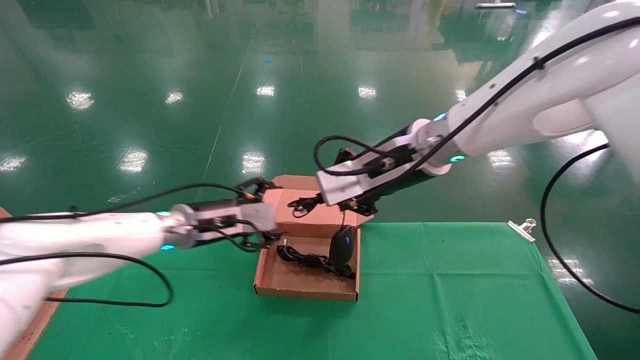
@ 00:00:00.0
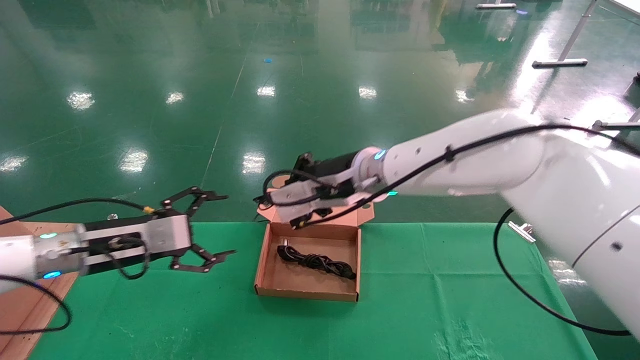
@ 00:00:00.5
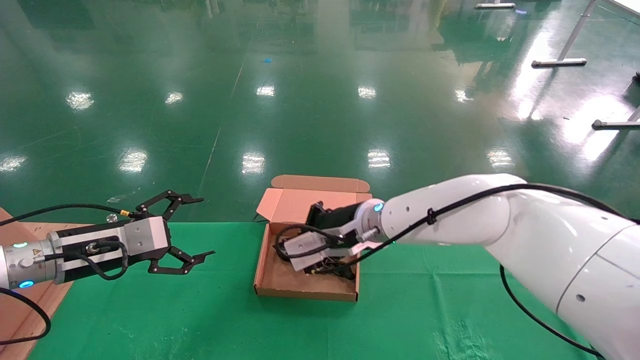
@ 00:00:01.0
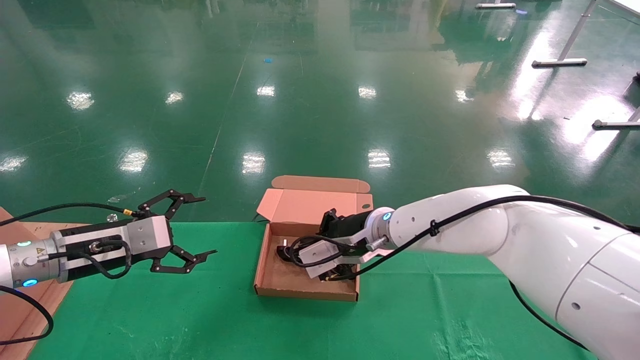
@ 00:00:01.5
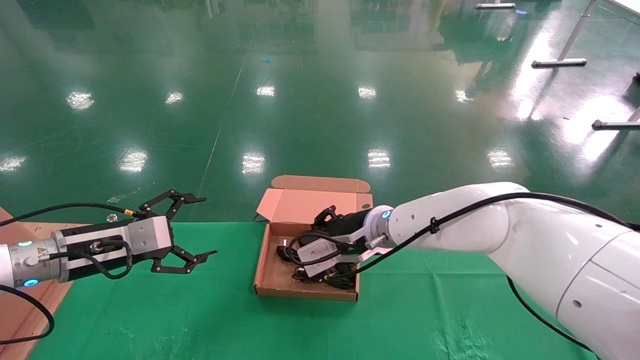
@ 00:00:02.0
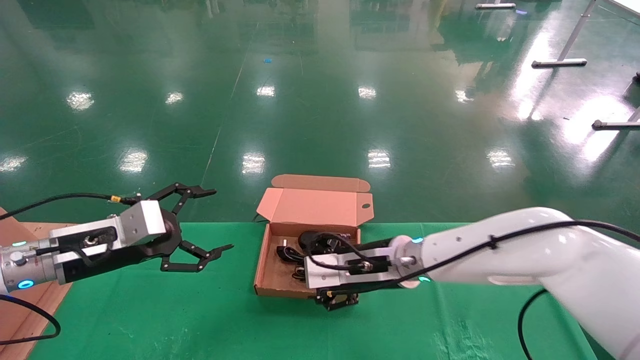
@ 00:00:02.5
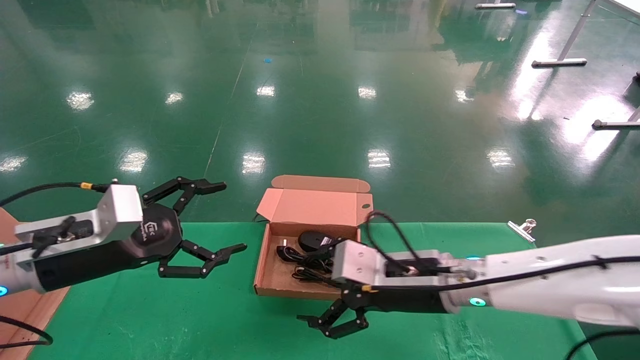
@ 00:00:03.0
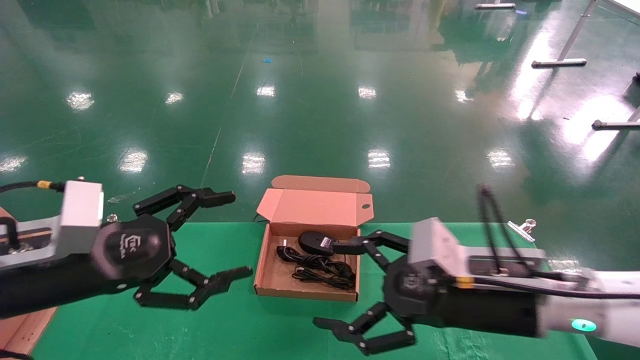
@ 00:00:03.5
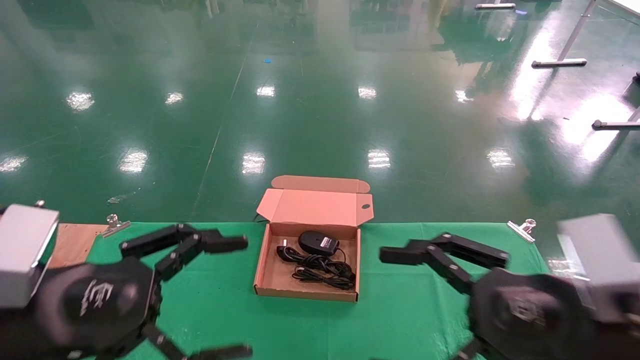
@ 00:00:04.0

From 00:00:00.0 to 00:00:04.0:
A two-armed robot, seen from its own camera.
Step, from 00:00:00.0 to 00:00:02.0: Place the mouse and power cord into the box.
From 00:00:00.0 to 00:00:02.0: The right gripper heads downward, covering roughly 15 cm. Meanwhile the left gripper is displaced to the left and backward by roughly 15 cm.
From 00:00:02.0 to 00:00:04.0: The right gripper heads backward and to the right, covering some 30 cm, and opens up; the left gripper shifts some 20 cm backward.
